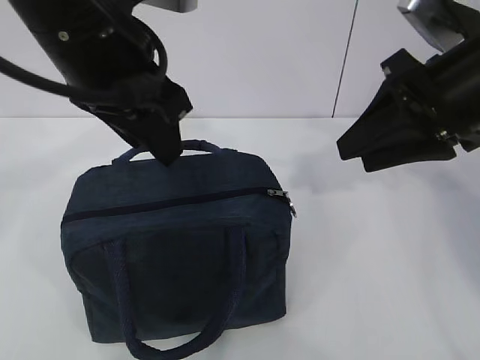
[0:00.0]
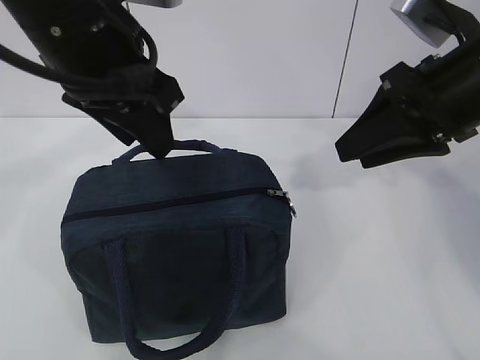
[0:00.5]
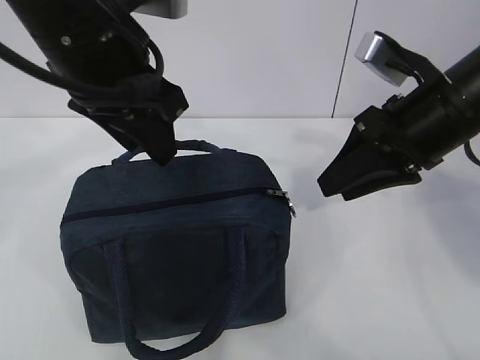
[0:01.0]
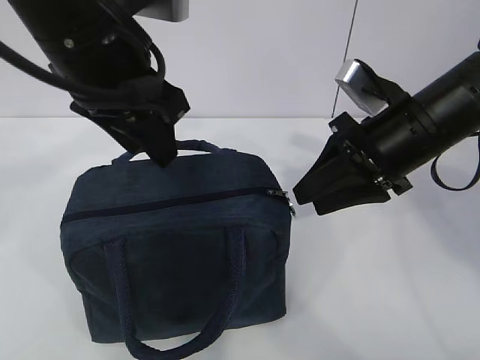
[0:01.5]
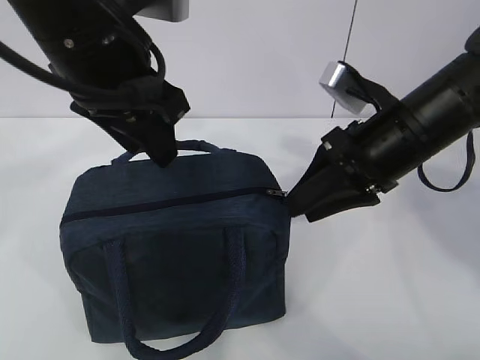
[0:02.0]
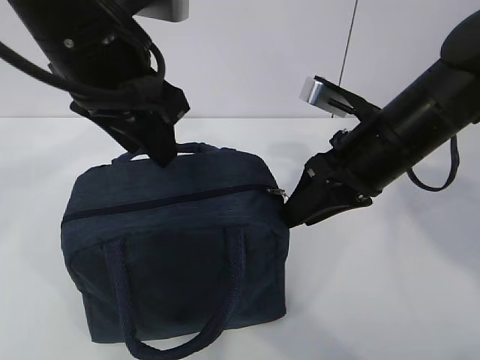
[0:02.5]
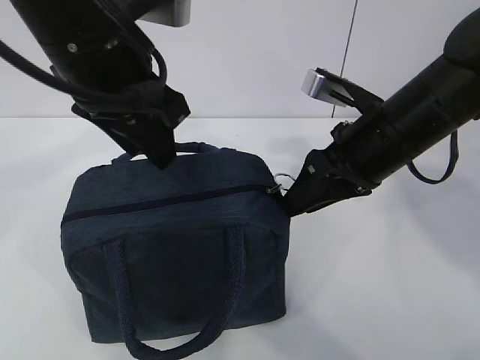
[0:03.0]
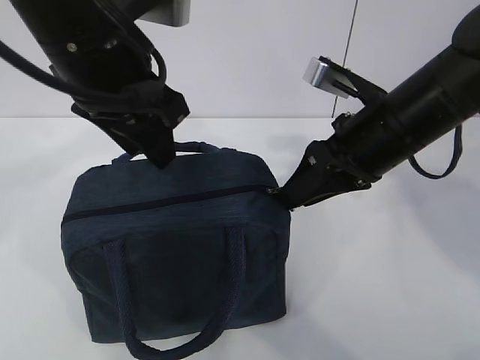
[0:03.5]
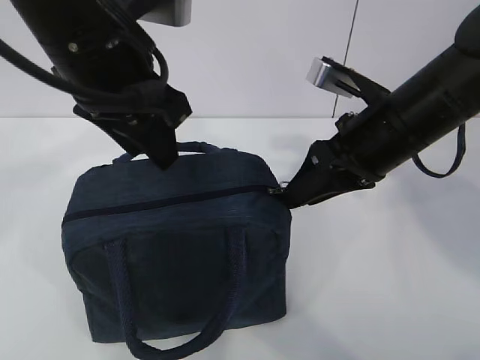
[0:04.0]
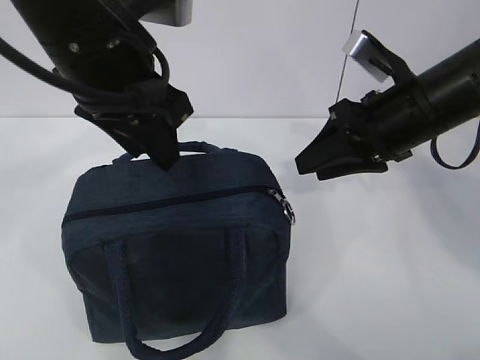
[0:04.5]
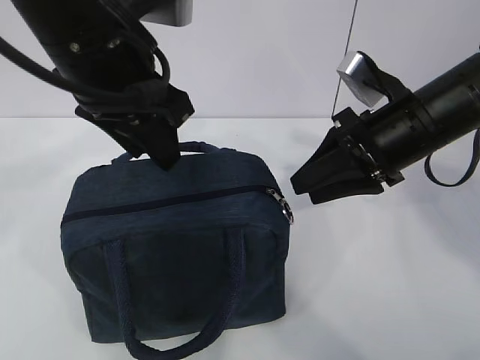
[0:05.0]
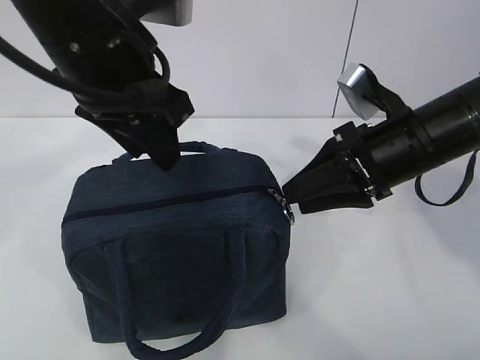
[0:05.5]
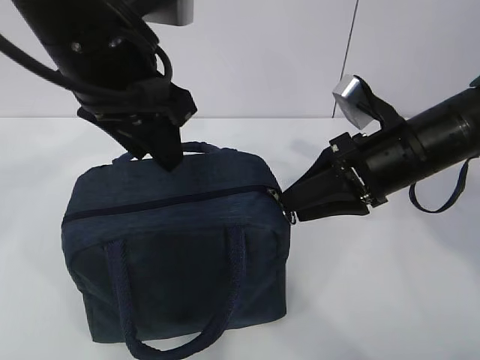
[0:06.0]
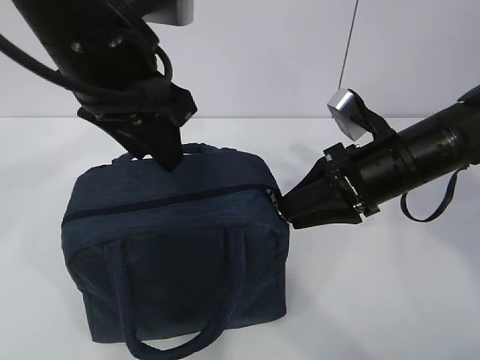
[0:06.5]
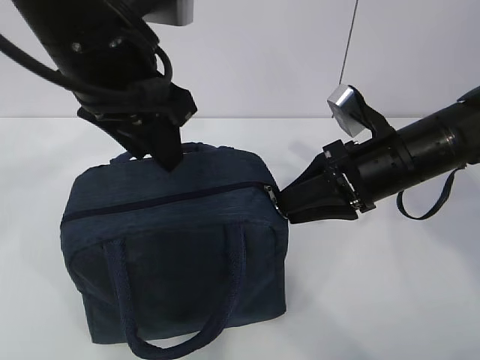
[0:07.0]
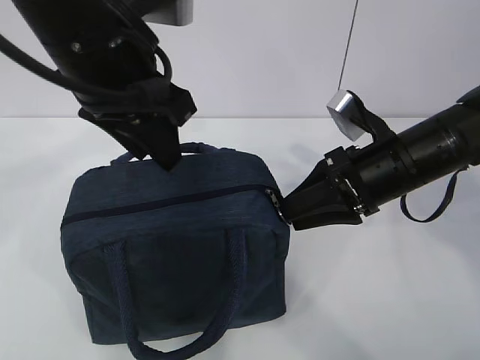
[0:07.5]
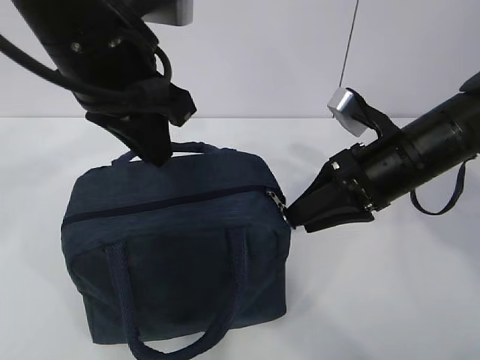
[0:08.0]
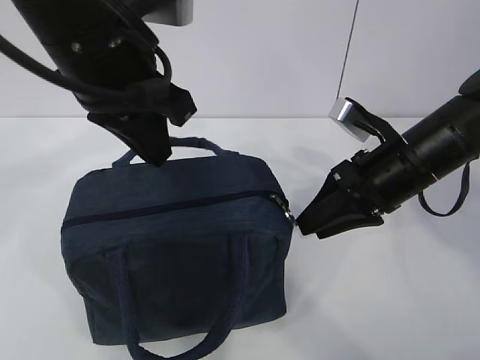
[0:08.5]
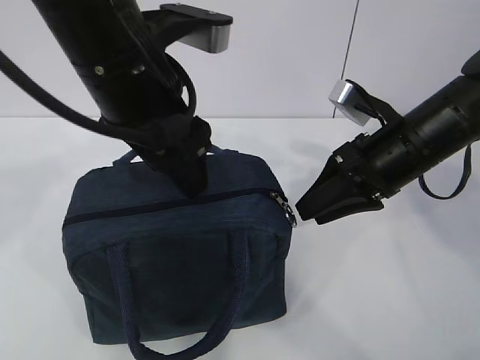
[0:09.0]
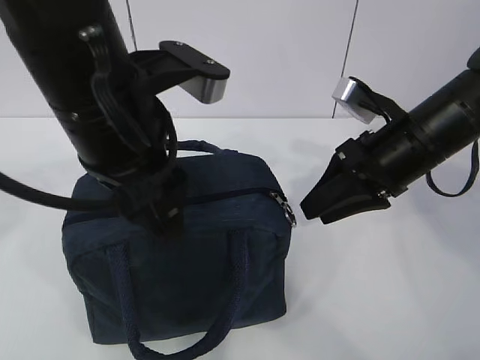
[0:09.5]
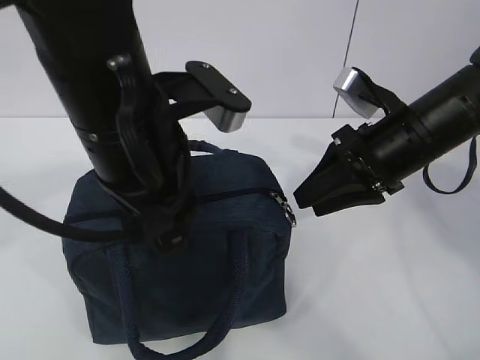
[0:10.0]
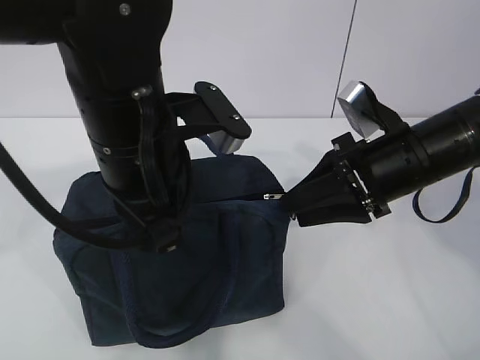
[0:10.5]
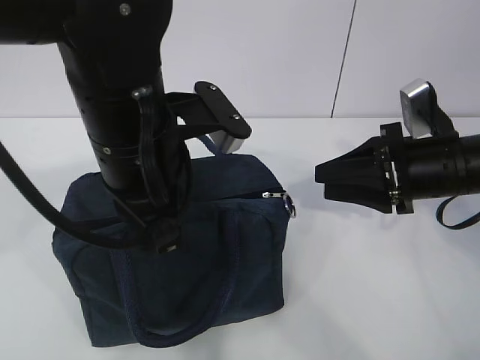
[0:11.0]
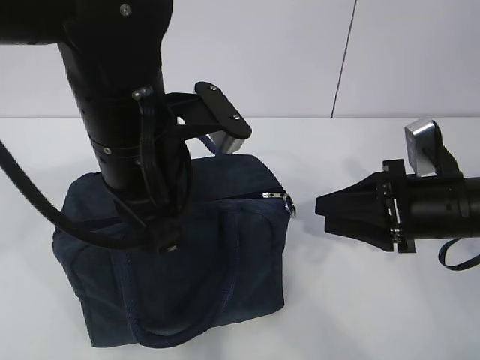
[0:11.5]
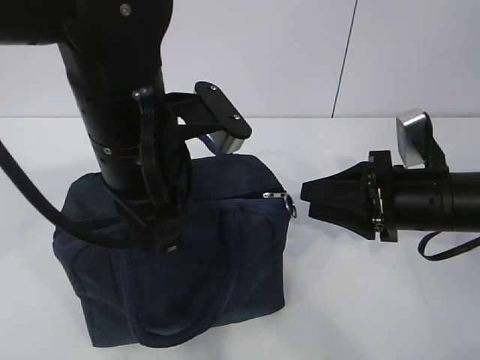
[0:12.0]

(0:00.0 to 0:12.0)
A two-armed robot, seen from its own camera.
0:00.0 - 0:02.0: The right gripper is displaced downward by roughly 10 cm.
0:02.0 - 0:04.0: The grippers move only a little.
0:06.0 - 0:08.0: The left gripper closes its fingers.
0:08.0 - 0:10.0: The left gripper moves roughly 5 cm, and opens up.
0:10.0 - 0:12.0: The left gripper closes its fingers, while the right gripper moves downward, some 5 cm.

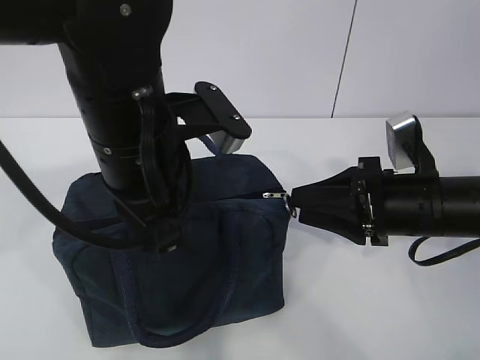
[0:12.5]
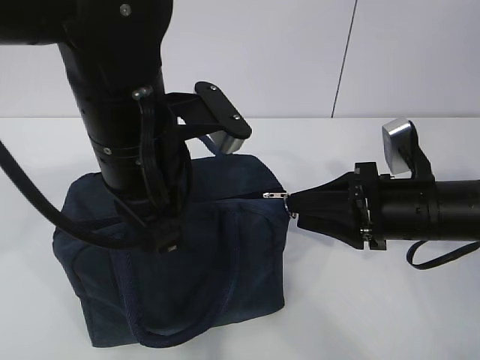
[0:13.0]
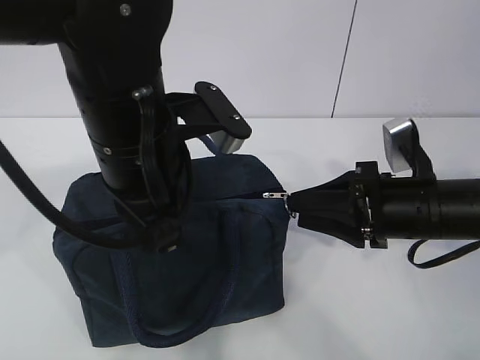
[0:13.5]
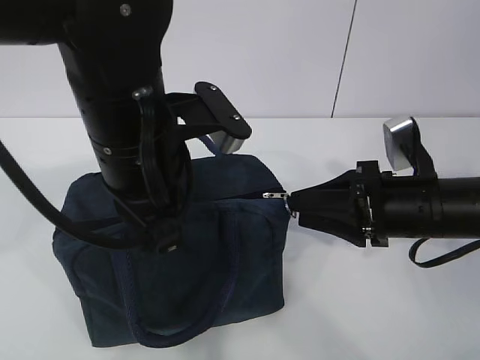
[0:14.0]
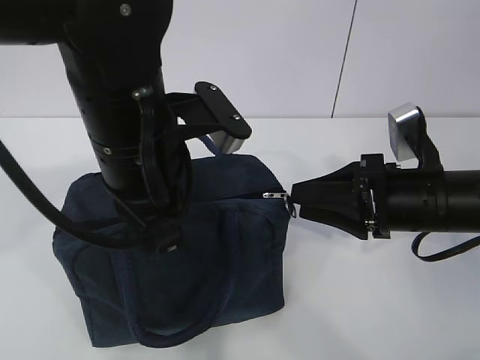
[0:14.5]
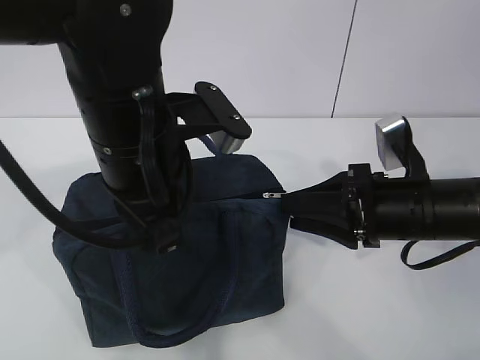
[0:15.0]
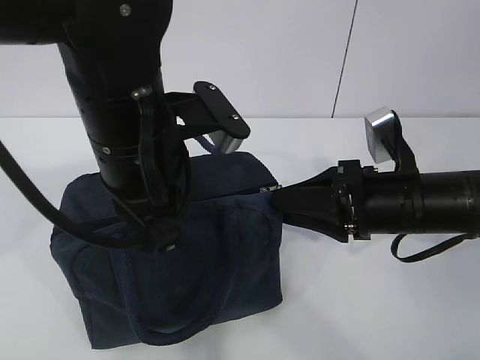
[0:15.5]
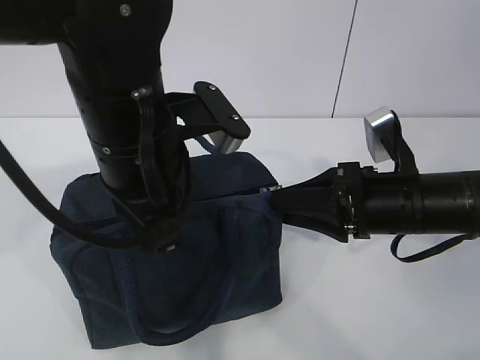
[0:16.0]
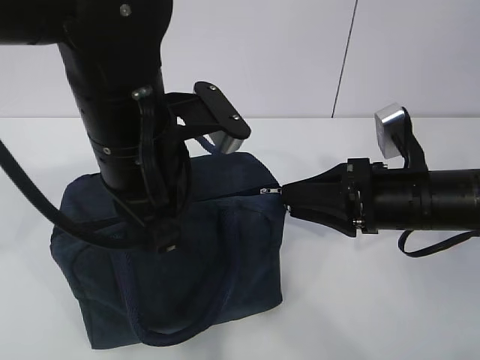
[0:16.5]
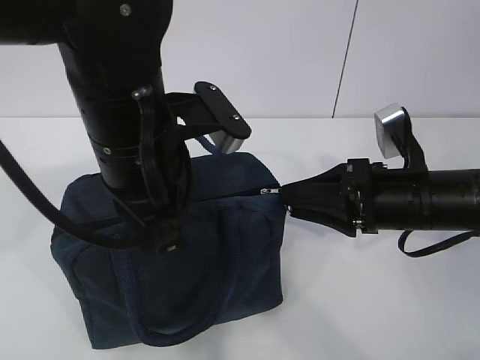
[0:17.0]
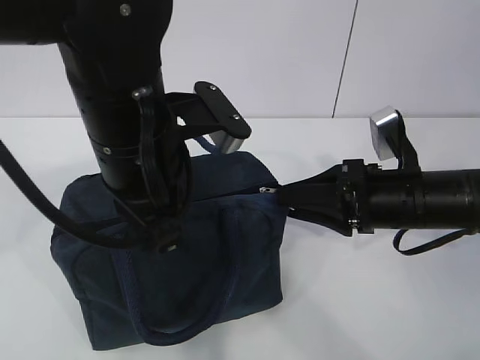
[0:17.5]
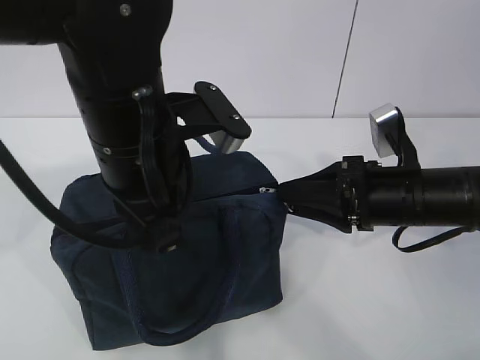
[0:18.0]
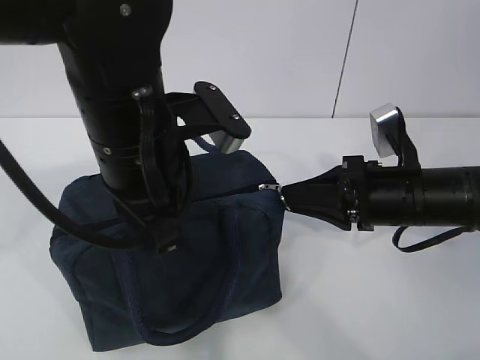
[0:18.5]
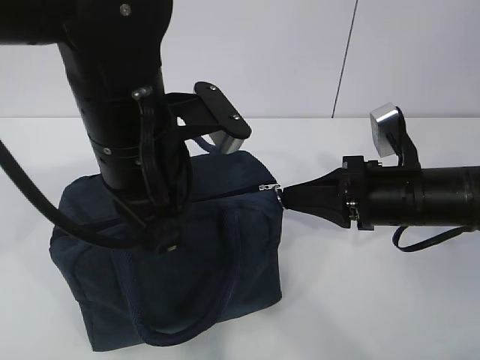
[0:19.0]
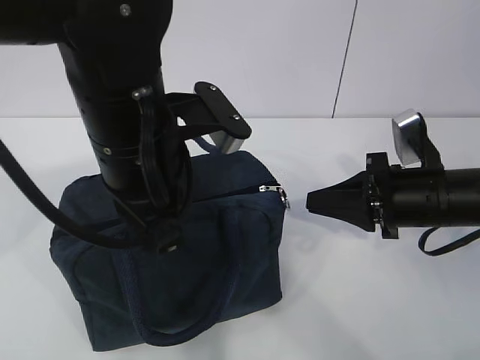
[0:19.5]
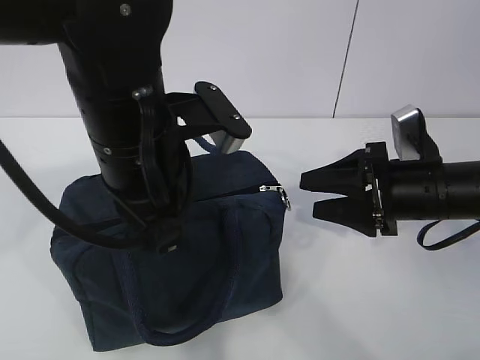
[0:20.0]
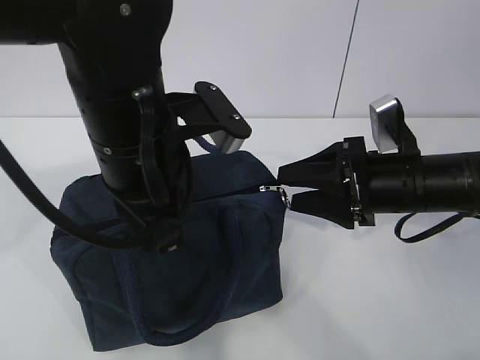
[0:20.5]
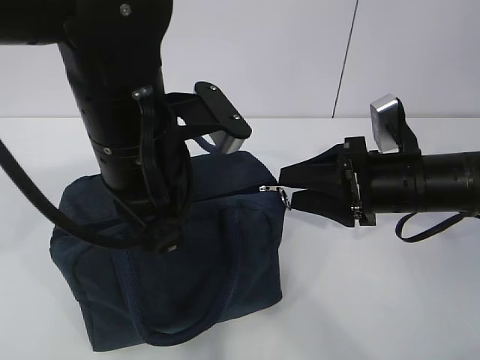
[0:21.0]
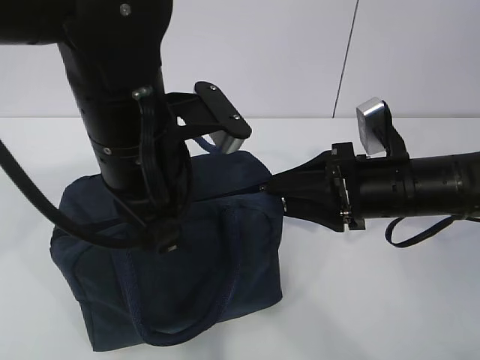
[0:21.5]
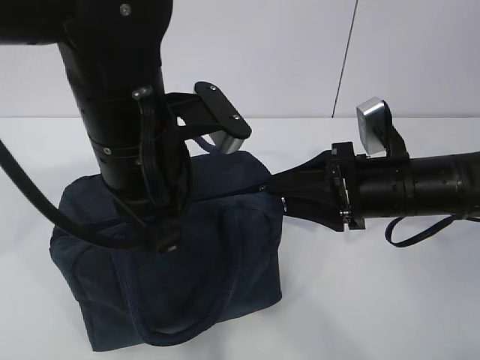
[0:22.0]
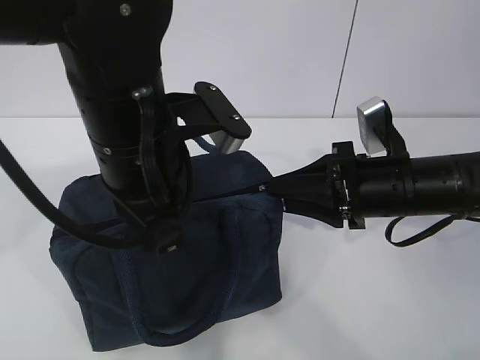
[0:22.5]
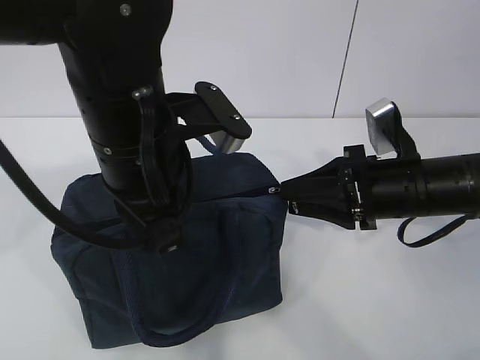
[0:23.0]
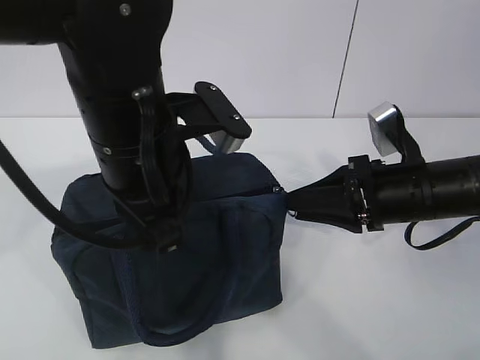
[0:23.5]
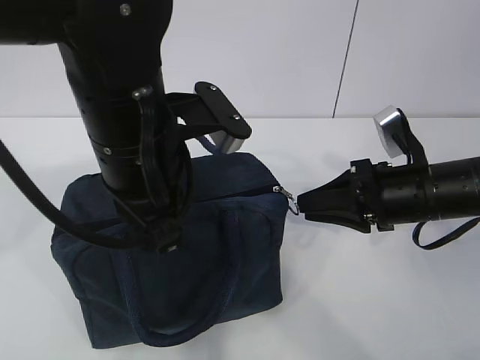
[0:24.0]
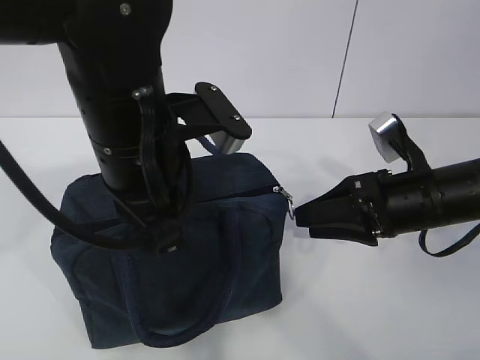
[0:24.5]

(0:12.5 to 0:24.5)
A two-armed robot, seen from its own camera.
0:12.5 - 0:14.5: The two grippers keep their place.
0:14.5 - 0:16.5: The grippers make only small movements.
0:16.5 - 0:18.5: Both grippers stay put.
0:18.5 - 0:20.5: The right gripper opens.
0:20.5 - 0:22.5: The right gripper closes up.
0:22.5 - 0:24.5: There are only small adjustments of the grippers.

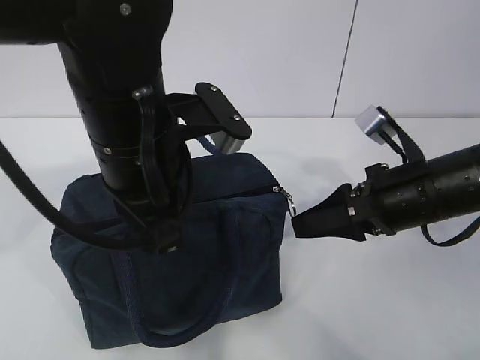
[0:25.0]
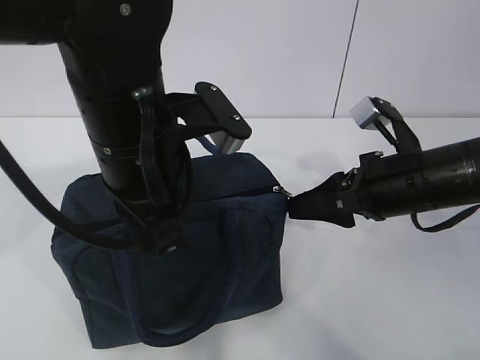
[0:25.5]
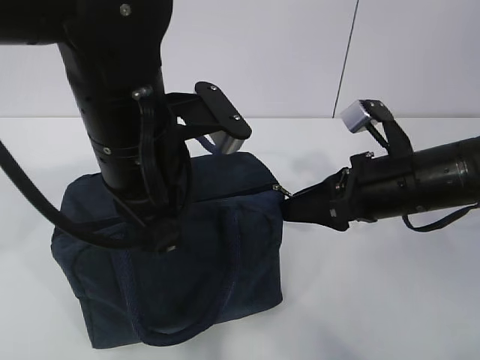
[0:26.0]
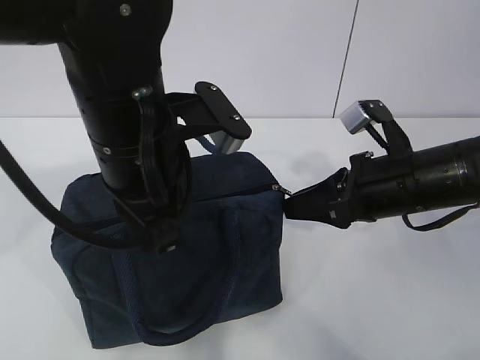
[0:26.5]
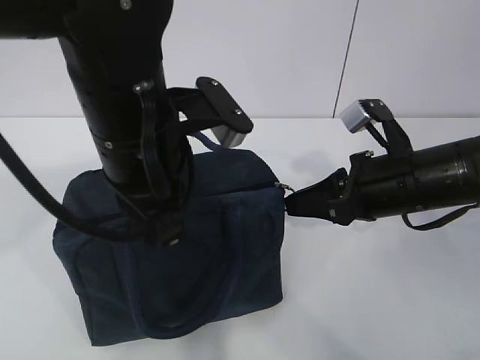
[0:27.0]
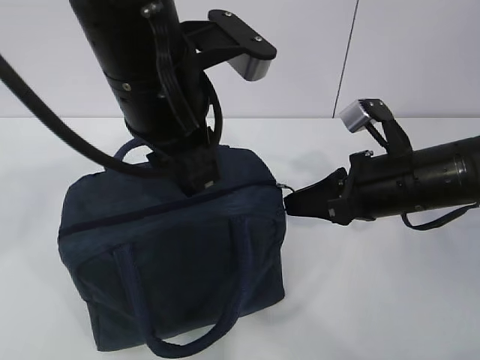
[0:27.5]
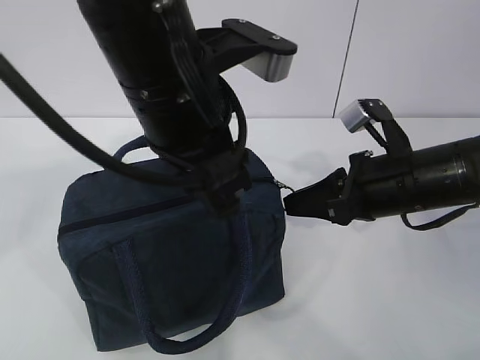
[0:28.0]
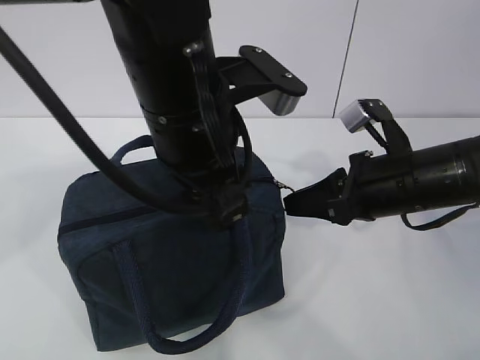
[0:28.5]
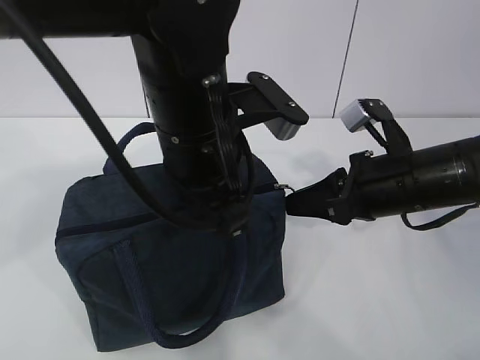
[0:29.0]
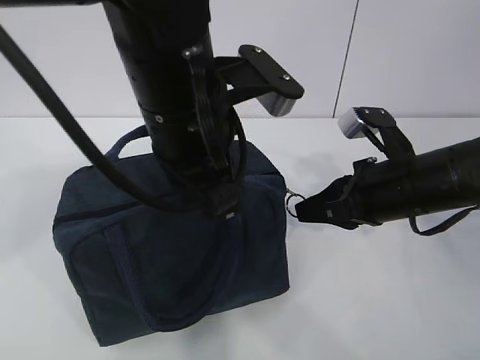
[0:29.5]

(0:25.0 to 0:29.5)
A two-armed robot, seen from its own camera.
0:25.0 - 0:27.0: The right gripper closes.
0:27.0 - 0:29.5: The left gripper opens and closes again.
